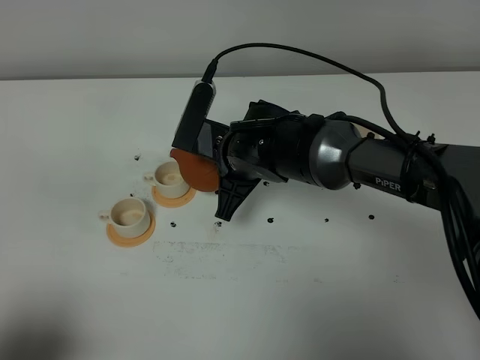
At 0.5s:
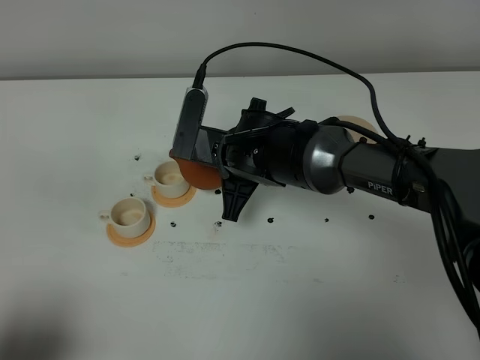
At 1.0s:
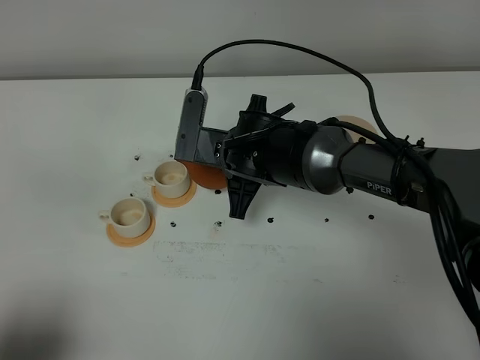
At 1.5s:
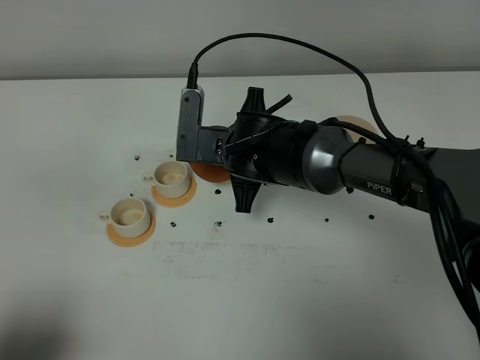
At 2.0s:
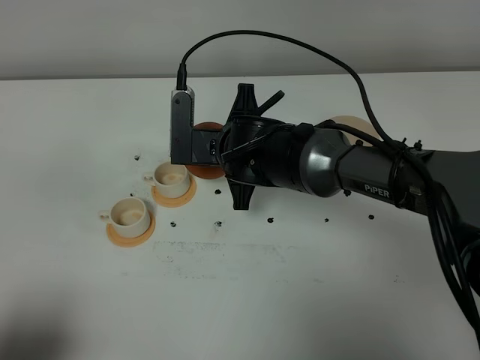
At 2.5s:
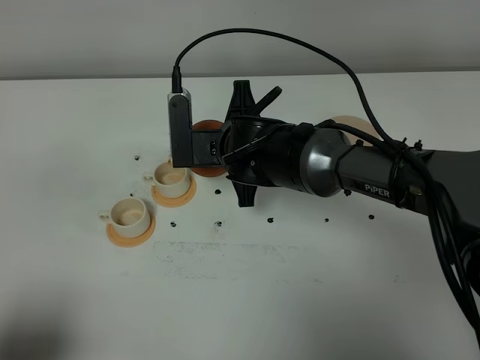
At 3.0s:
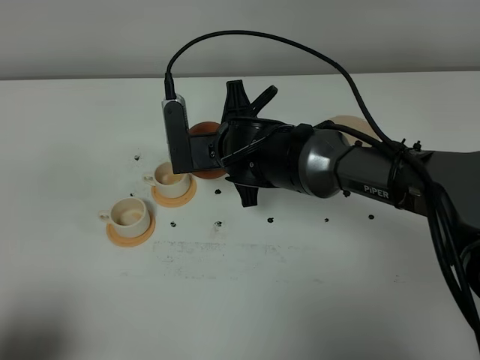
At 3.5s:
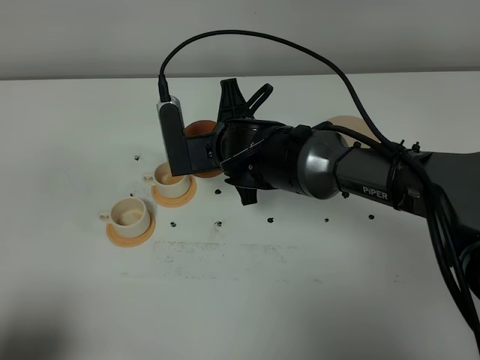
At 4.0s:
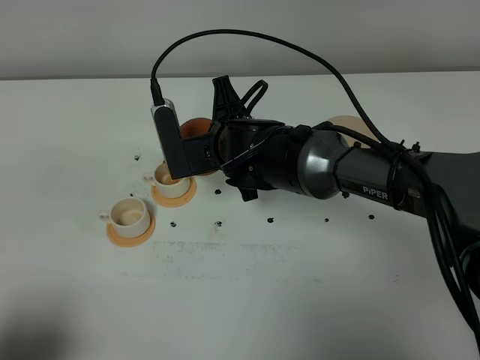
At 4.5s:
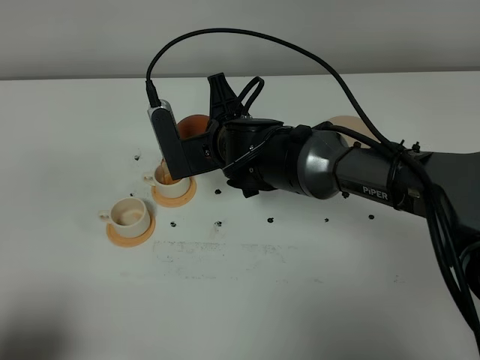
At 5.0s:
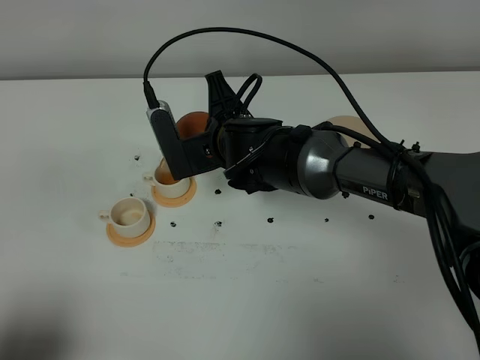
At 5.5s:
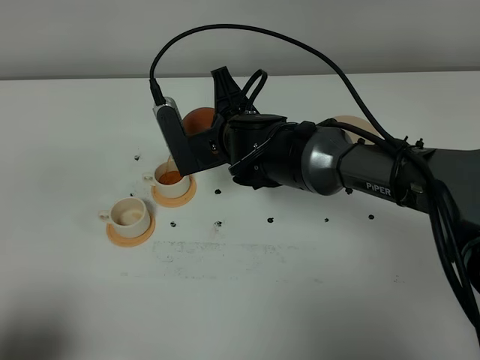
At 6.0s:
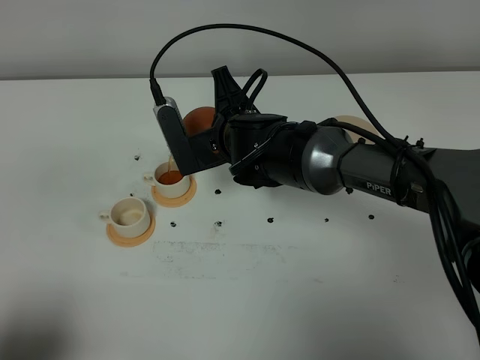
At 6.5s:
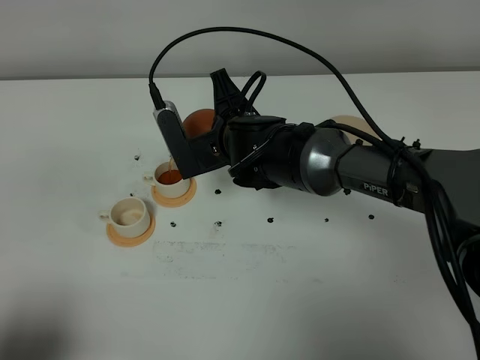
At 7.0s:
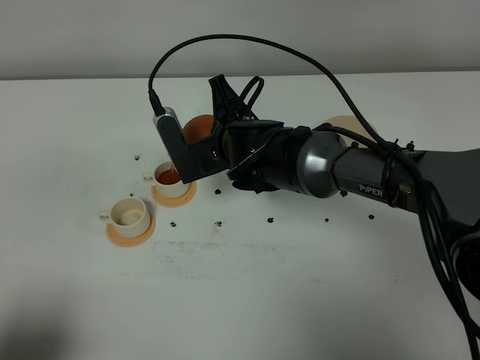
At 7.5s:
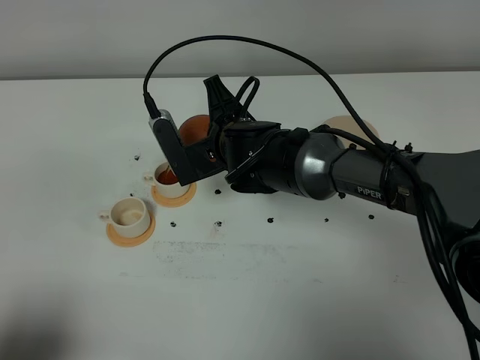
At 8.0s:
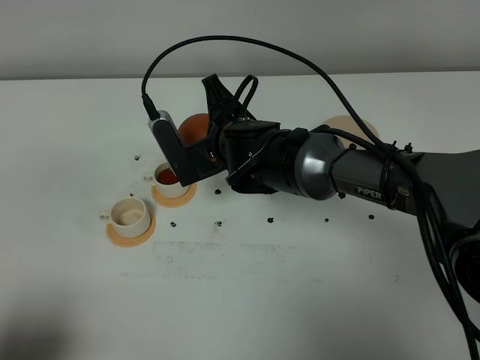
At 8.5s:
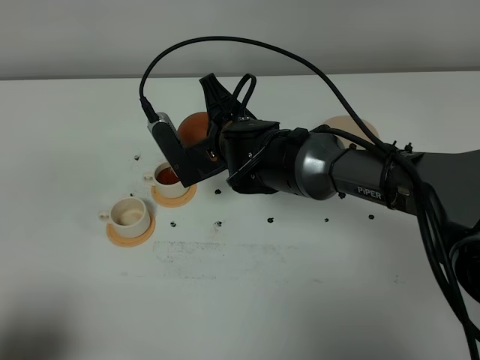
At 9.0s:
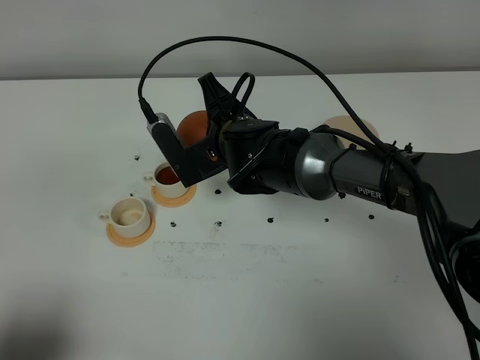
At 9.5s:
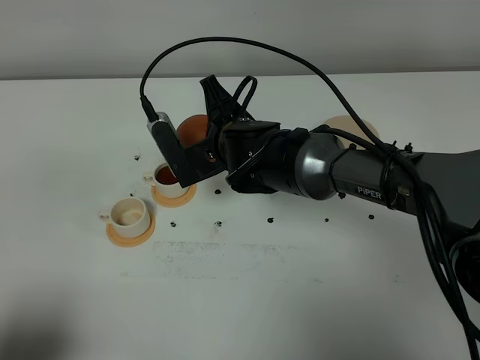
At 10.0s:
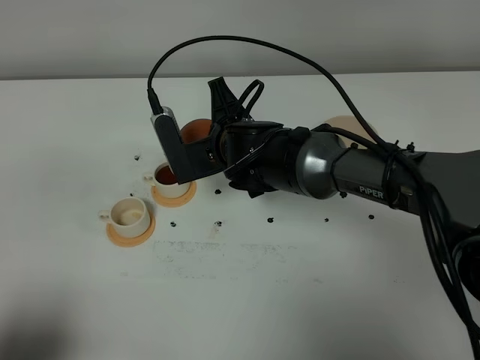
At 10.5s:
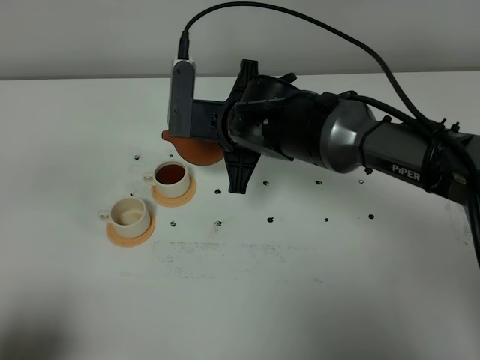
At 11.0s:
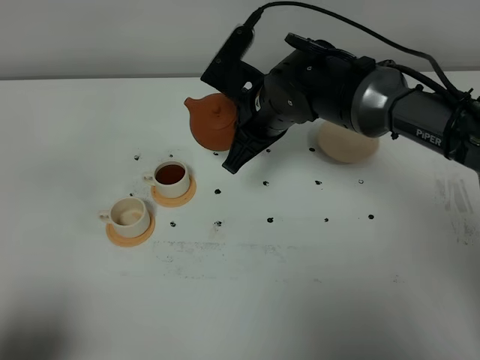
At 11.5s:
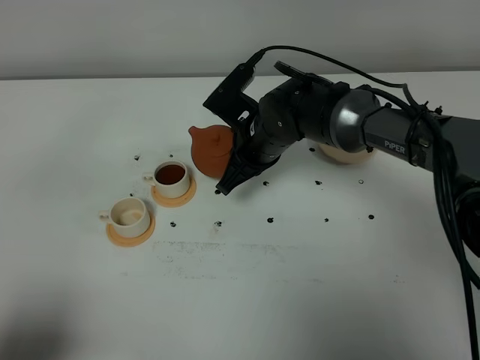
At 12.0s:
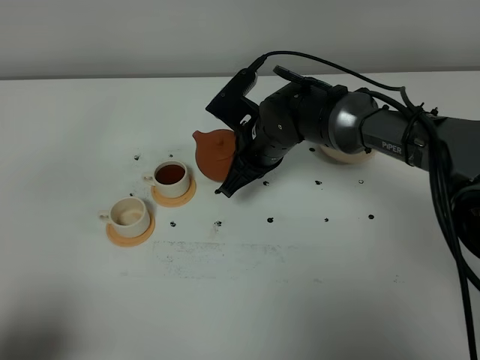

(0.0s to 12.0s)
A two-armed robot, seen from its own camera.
Task of the whole recording: grasp the brown teapot and pour the tea into the two white teacups one by one, put the brown teapot back in its original place.
2.0s - 4.0s: The grippers stay close to where they were, moving slightly.
4.0s - 10.0s: There are only small adjustments of the grippers.
10.0s - 12.0s: The right gripper shifts by some 5 cm.

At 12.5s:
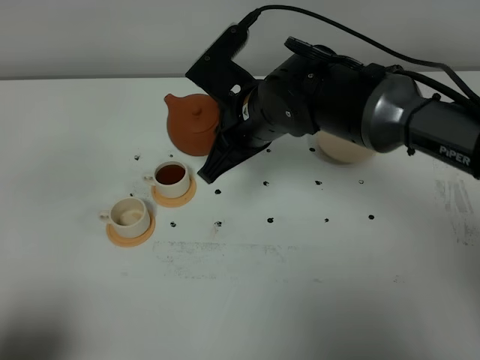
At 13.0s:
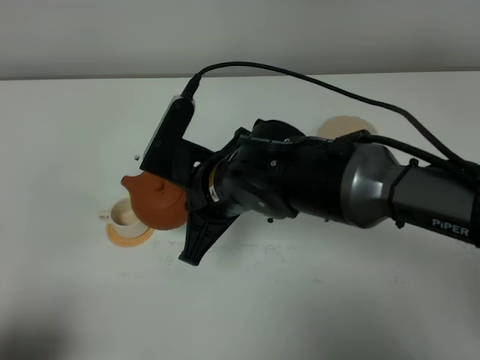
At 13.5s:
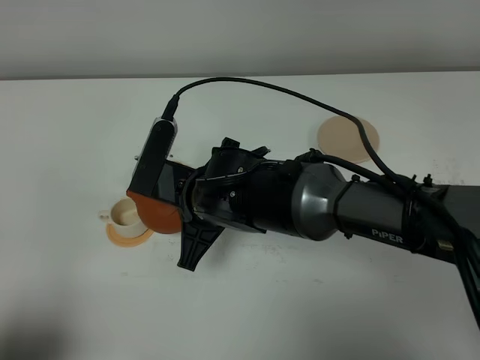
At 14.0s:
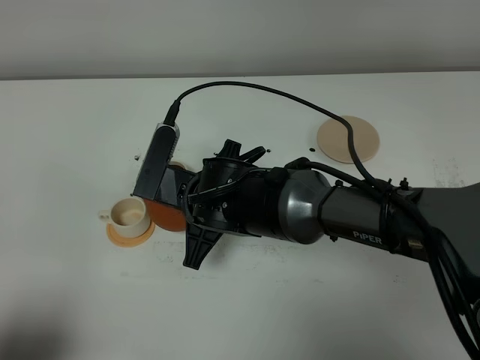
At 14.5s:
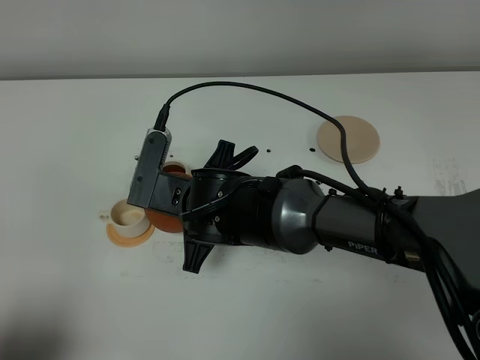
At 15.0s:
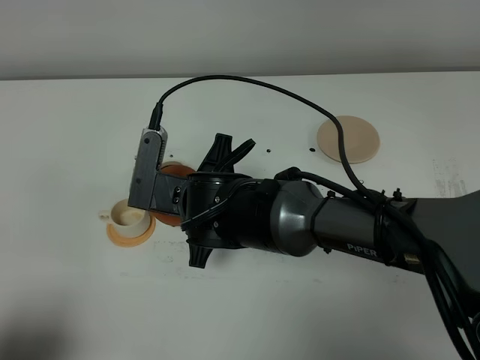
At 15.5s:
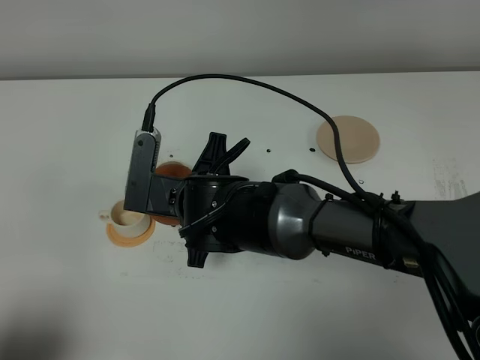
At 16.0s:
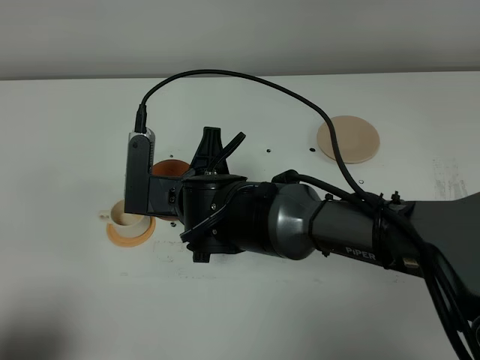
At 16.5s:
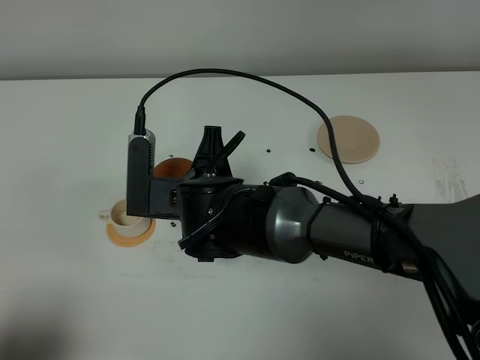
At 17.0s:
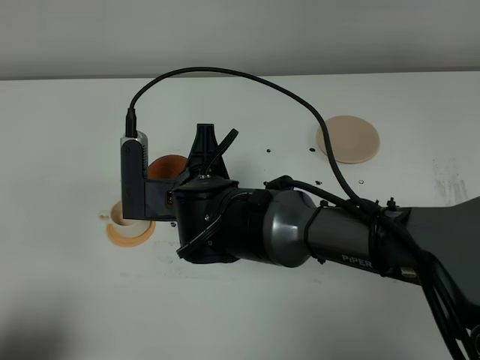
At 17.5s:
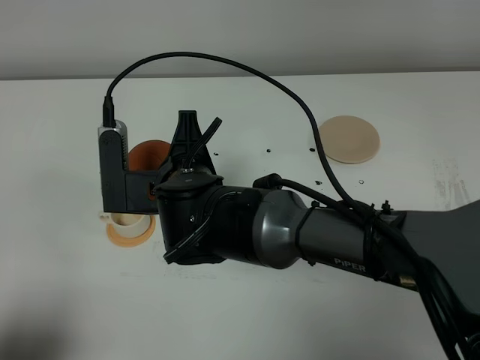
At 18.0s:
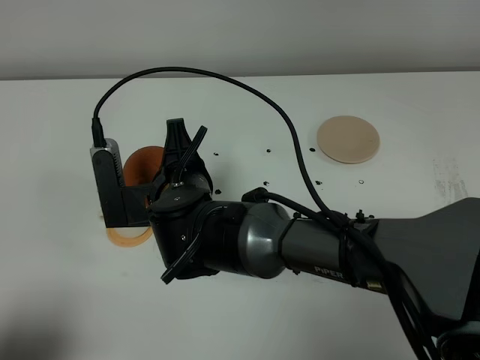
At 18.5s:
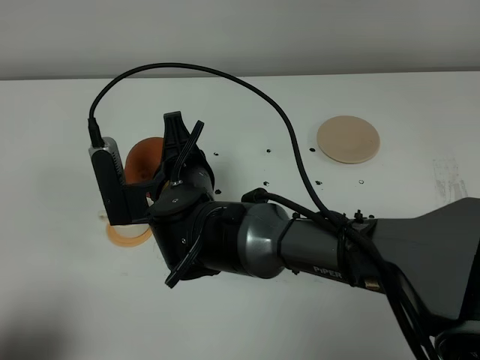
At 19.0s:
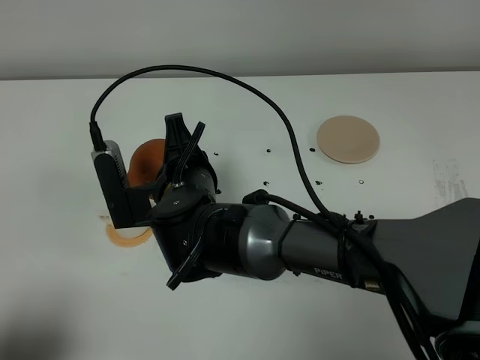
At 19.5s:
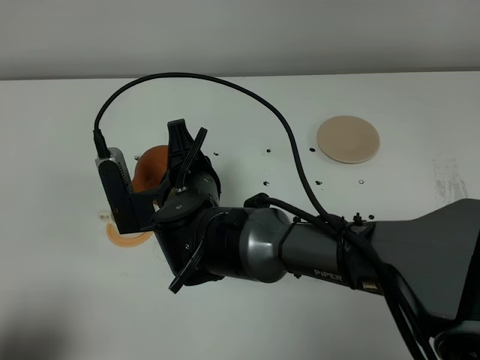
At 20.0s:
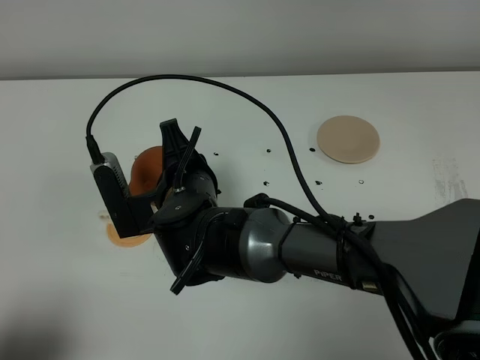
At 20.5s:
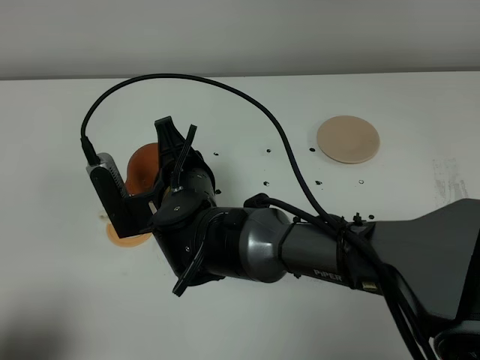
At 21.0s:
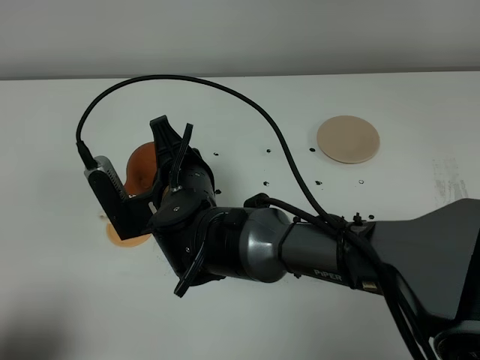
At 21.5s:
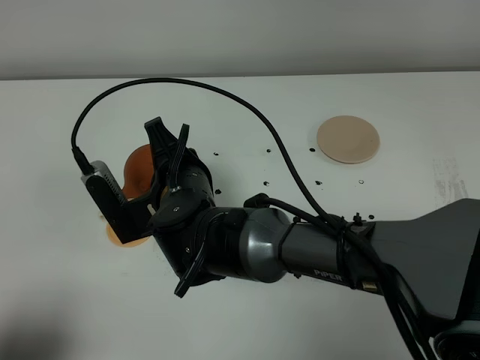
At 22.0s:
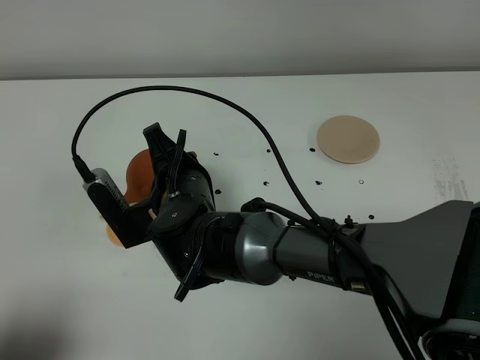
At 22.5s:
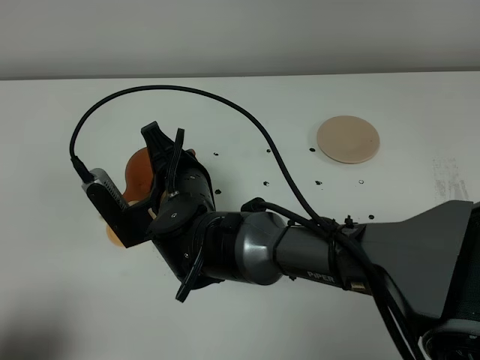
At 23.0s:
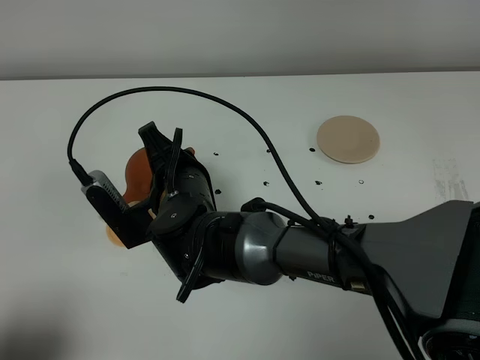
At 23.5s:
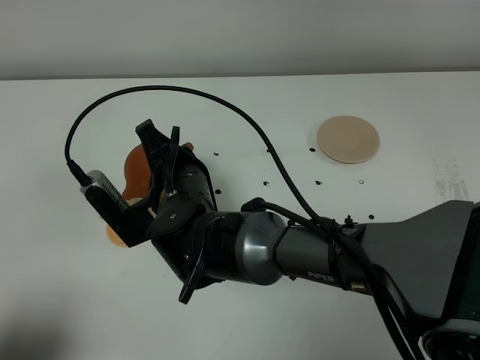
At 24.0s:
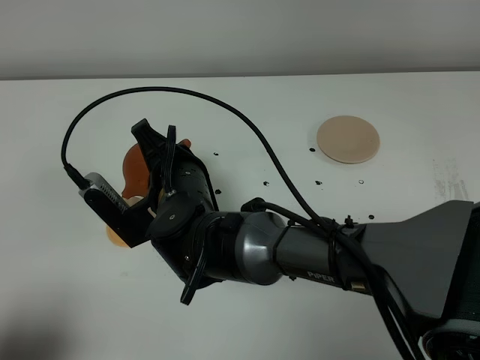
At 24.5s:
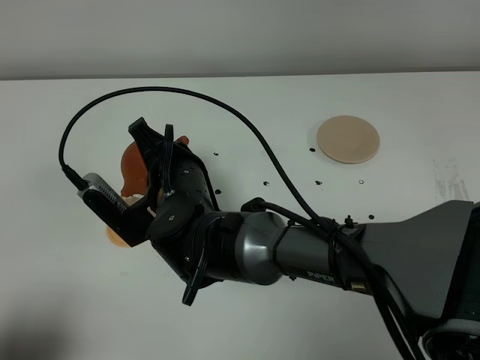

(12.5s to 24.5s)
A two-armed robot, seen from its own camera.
Task of the whole recording: grasp the brown teapot and pour the tea into the two white teacups one by one, put the brown teapot back in its original place.
12.5s - 14.5s: The right gripper moves downward, backward and to the left, approximately 10 cm.
14.5s - 16.5s: The grippers make only small movements.
18.5s - 22.5s: There are only small adjustments of the grippers.
22.5s - 24.5s: The grippers move only a little.

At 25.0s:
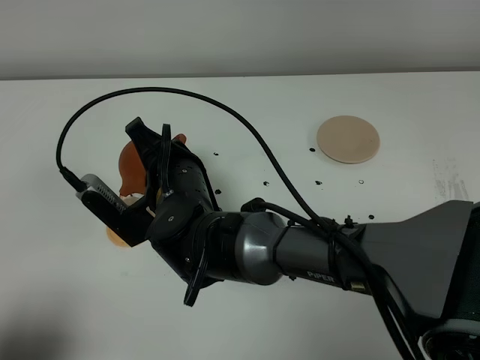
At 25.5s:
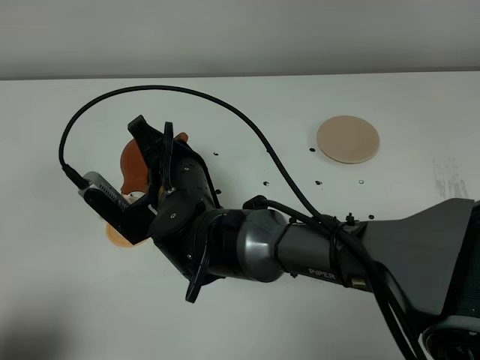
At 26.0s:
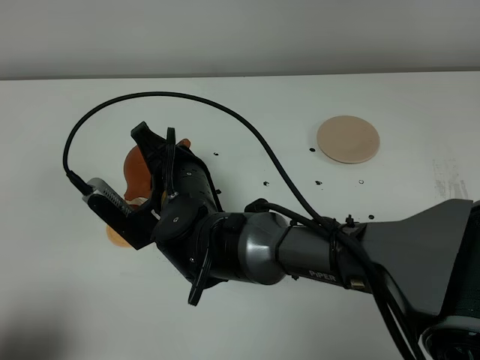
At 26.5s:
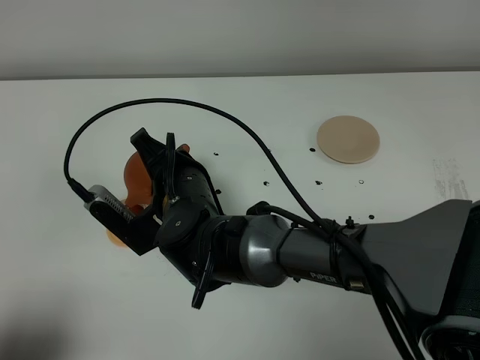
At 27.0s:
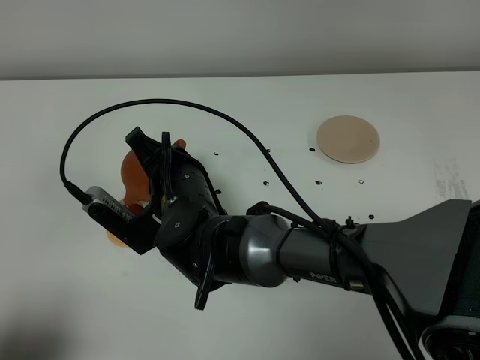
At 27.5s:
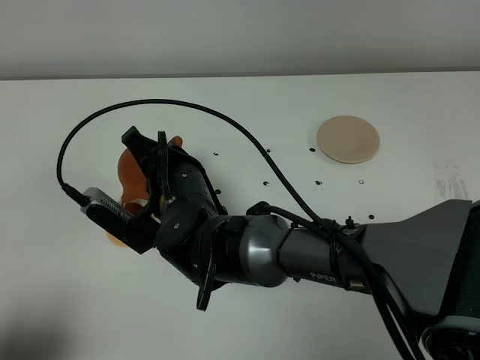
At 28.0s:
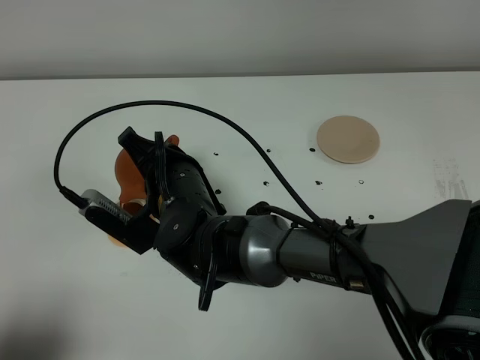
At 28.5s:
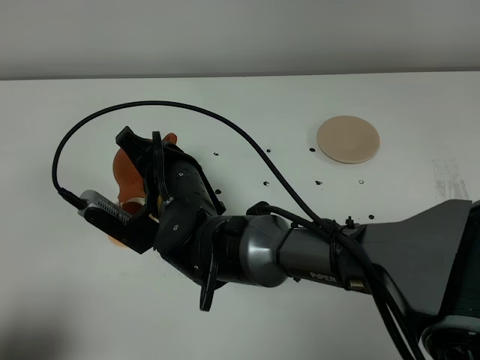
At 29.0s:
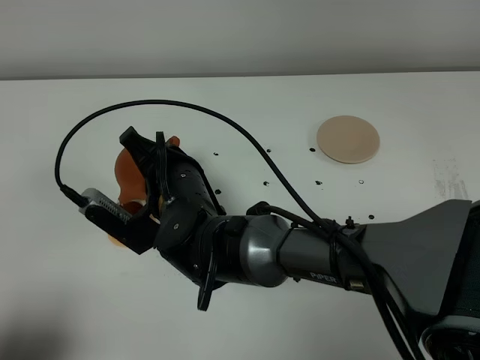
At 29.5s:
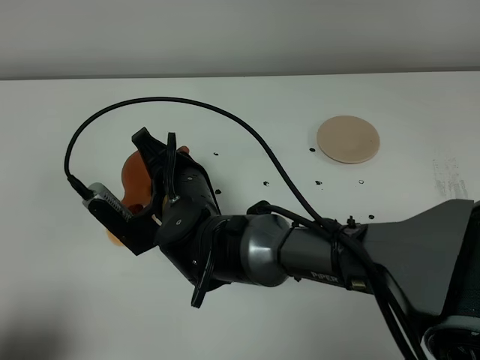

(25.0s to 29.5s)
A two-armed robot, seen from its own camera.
Task of the whole recording: grasp the brown teapot and pour the tea into the two white teacups one by one, put the brown teapot back in its original place.
25.0s - 27.0s: Both grippers stay about where they are.
27.0s - 29.5s: The grippers stay close to where they were, moving slightly.
